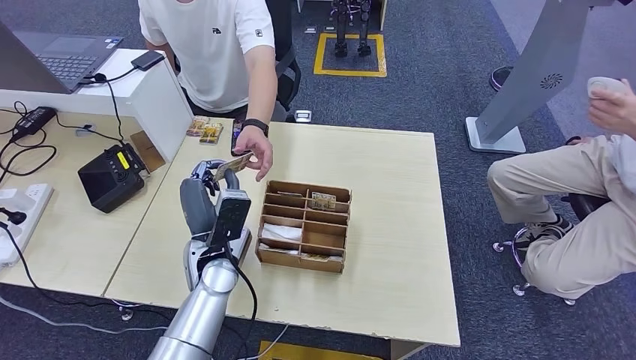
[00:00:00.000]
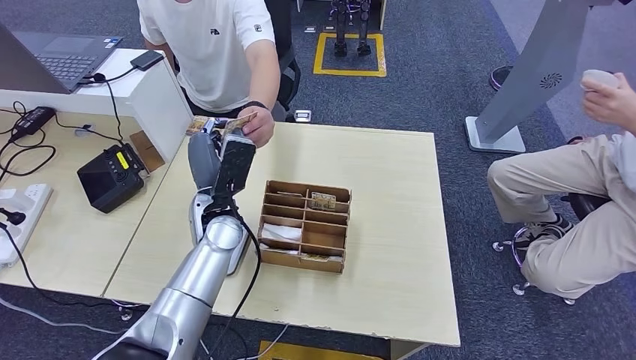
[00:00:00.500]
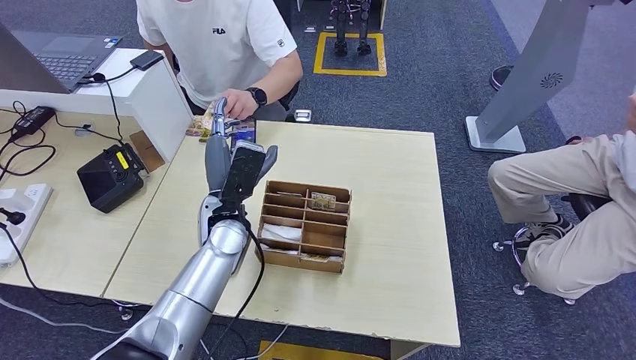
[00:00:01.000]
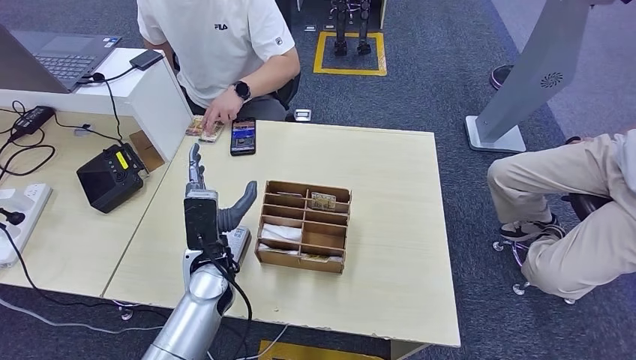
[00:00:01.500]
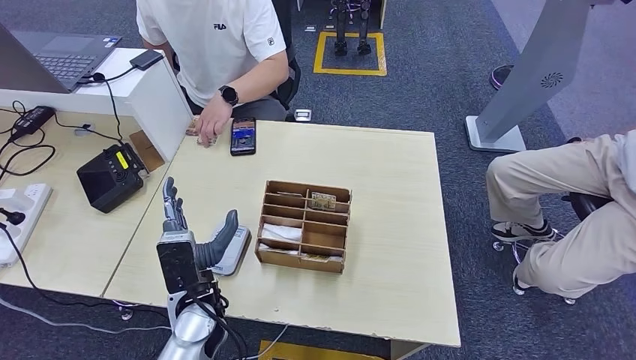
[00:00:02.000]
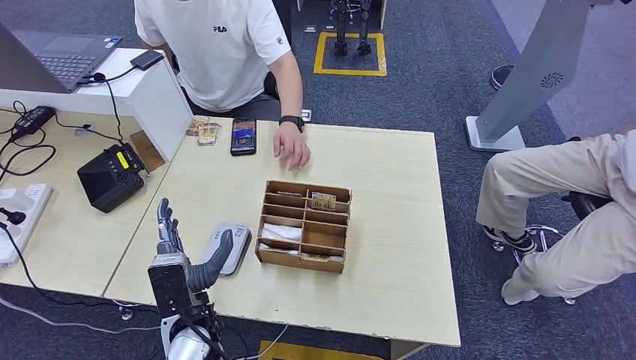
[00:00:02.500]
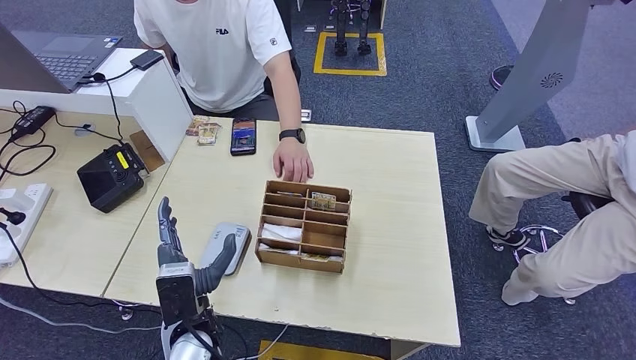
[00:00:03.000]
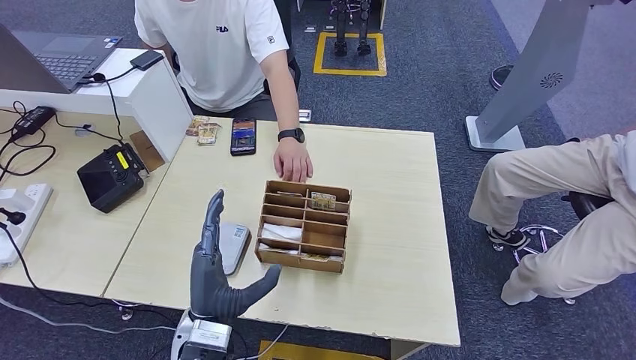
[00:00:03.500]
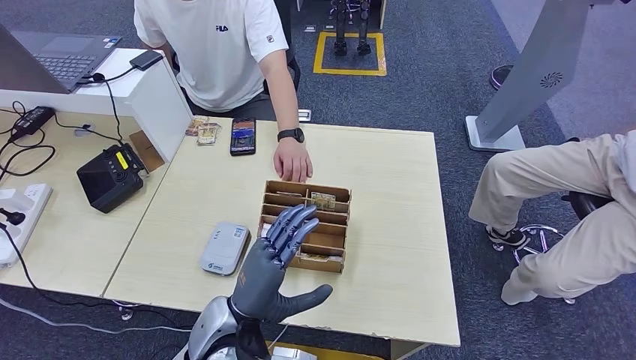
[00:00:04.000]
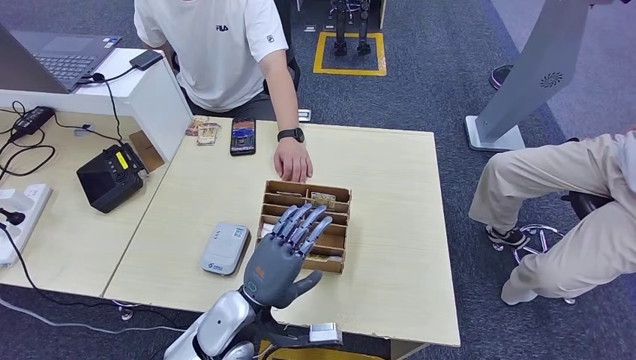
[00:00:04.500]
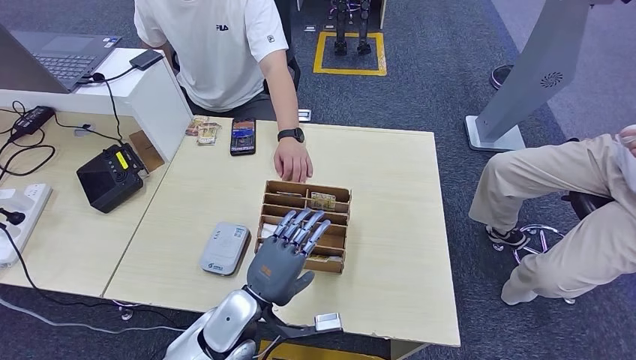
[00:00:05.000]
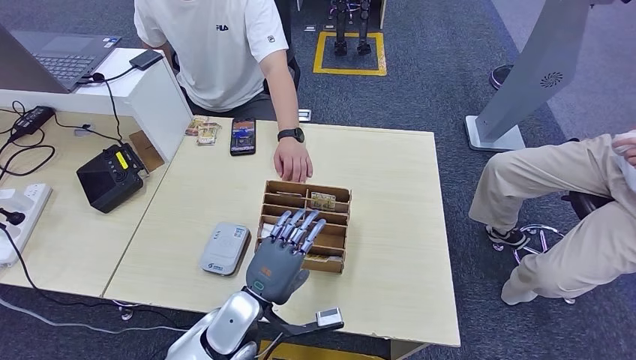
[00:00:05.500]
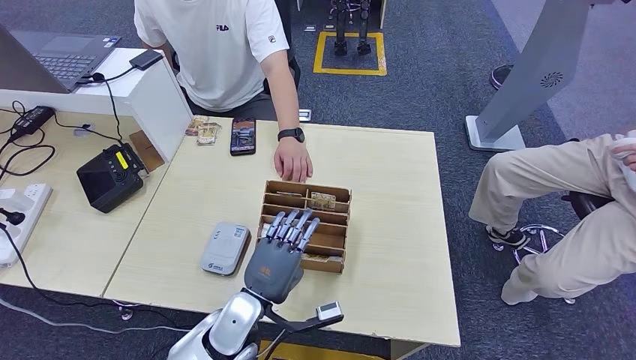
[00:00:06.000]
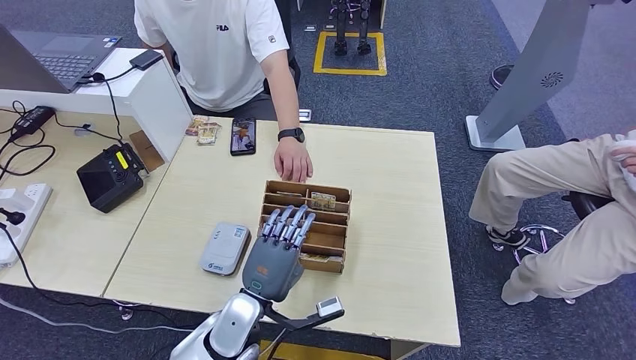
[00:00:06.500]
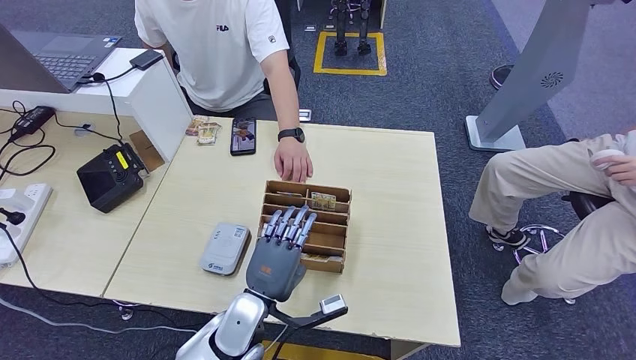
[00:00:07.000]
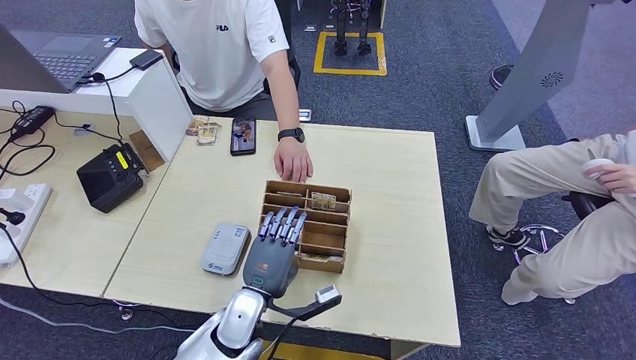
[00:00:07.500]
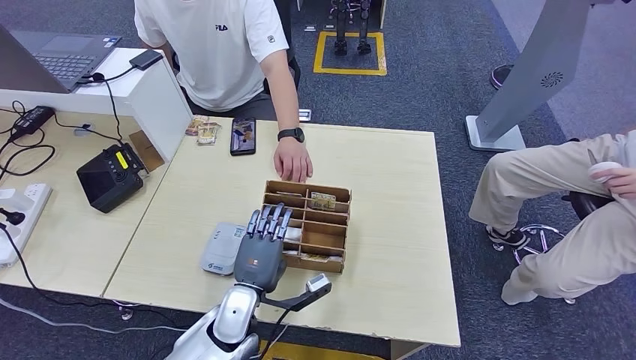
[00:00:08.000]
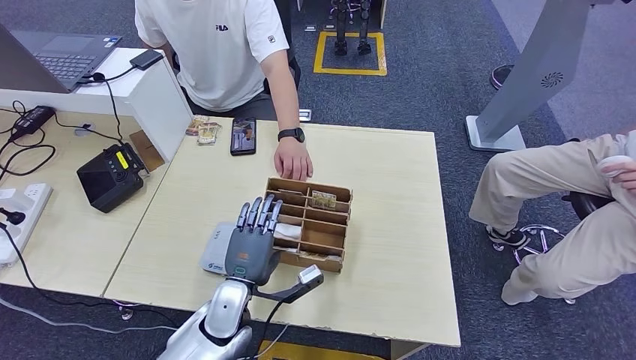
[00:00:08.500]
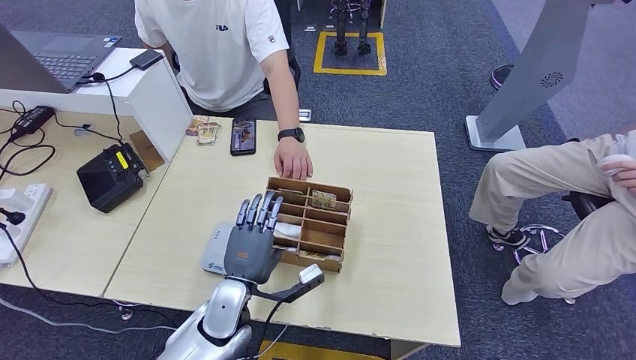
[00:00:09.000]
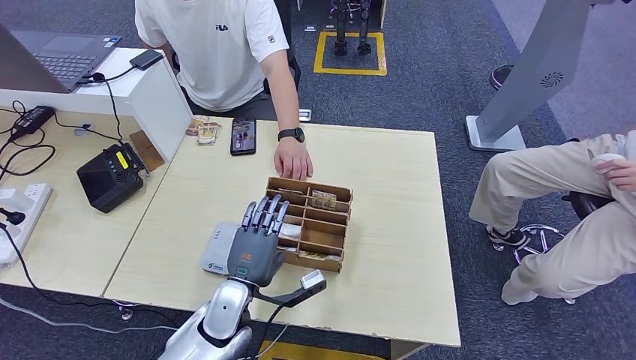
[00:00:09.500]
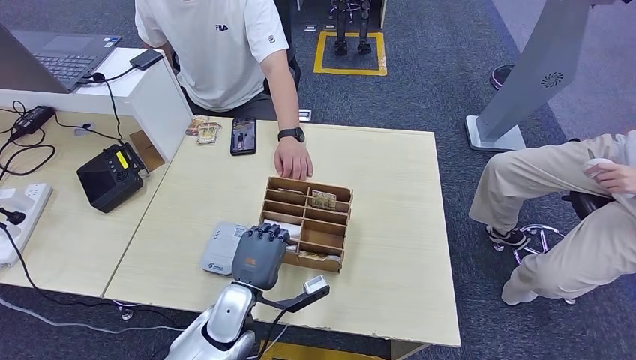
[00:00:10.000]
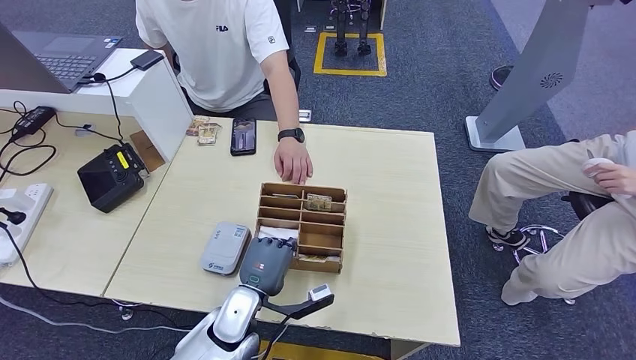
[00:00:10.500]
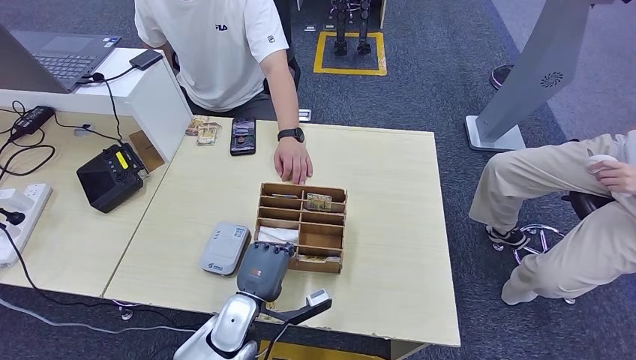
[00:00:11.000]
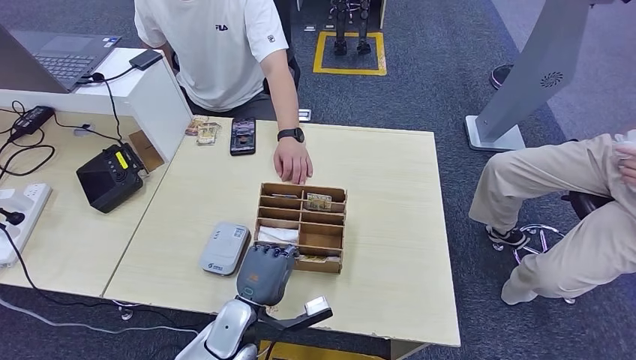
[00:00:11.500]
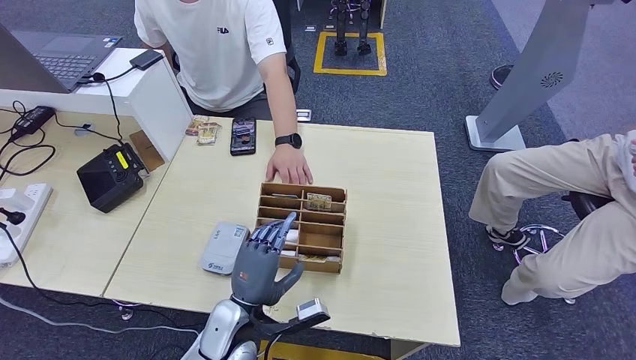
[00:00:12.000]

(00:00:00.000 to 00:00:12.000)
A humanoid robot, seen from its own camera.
00:00:00.000 - 00:00:02.000: The left hand moves backward, roughly 5 cm.
00:00:02.000 - 00:00:04.000: The left hand goes roughly 5 cm to the right.
00:00:04.000 - 00:00:06.000: The left hand travels downward by roughly 5 cm.
00:00:06.000 - 00:00:10.000: The hands stay close to where they were, moving slightly.

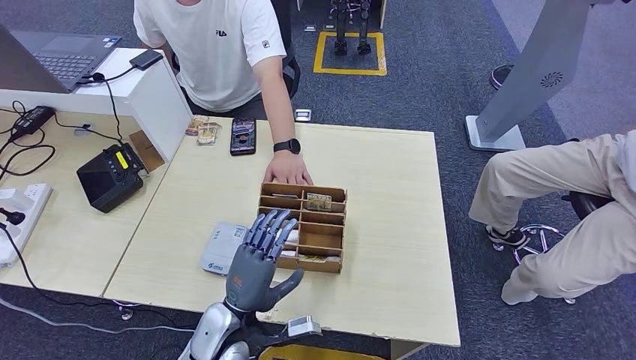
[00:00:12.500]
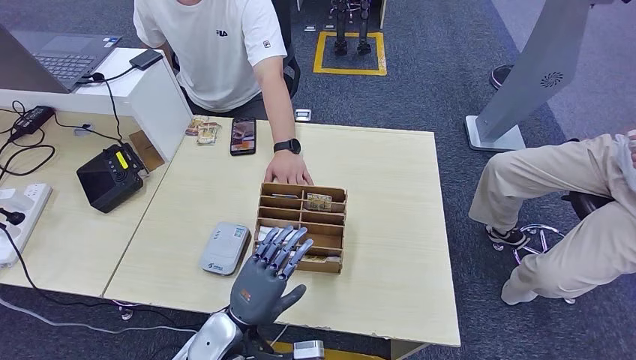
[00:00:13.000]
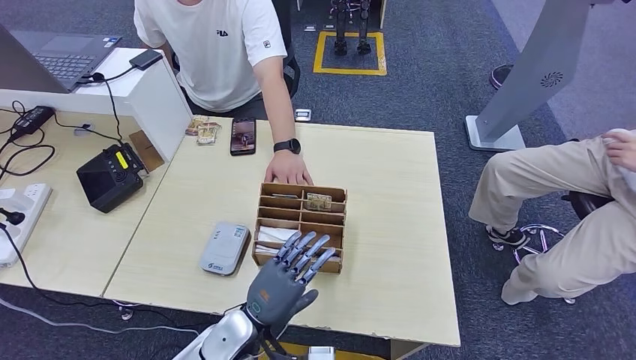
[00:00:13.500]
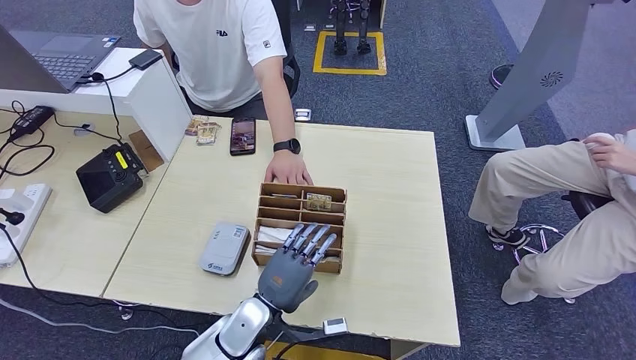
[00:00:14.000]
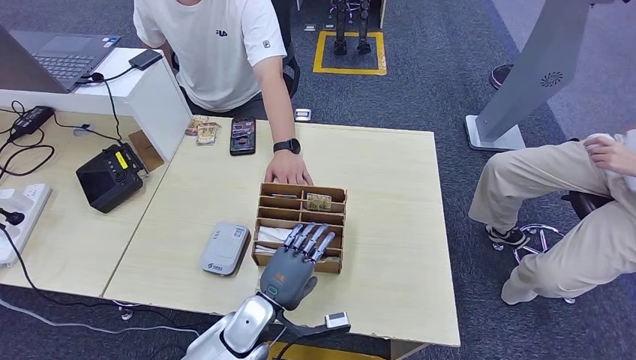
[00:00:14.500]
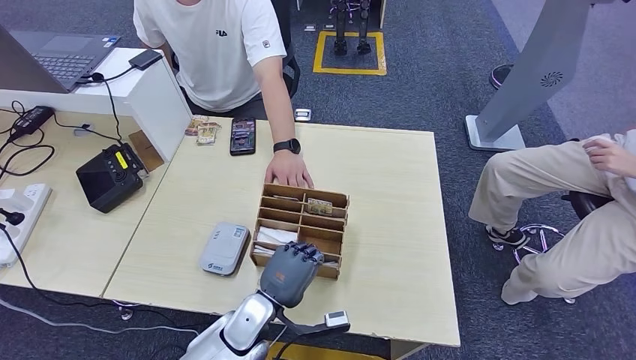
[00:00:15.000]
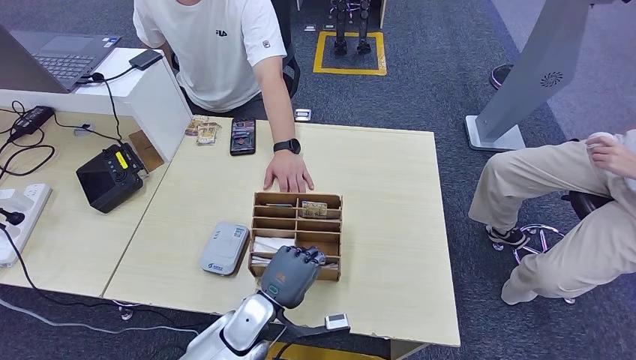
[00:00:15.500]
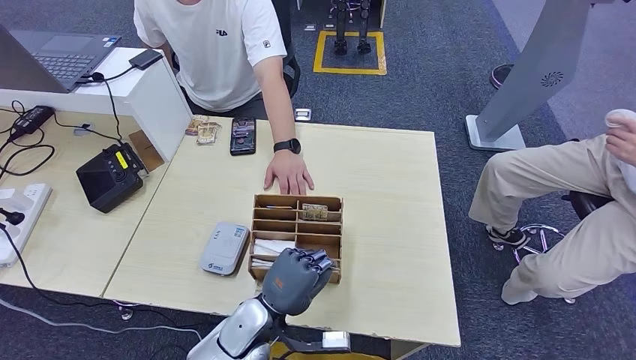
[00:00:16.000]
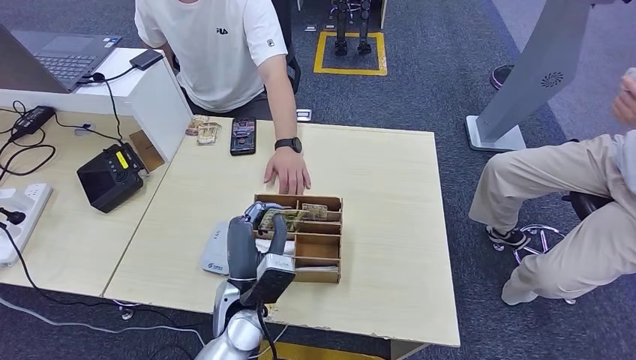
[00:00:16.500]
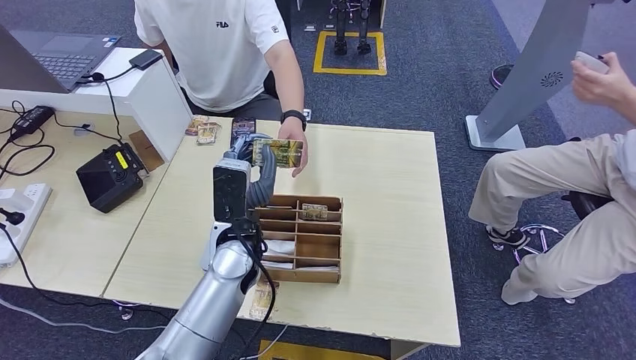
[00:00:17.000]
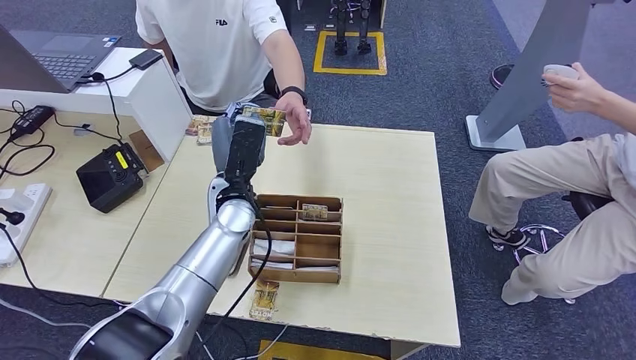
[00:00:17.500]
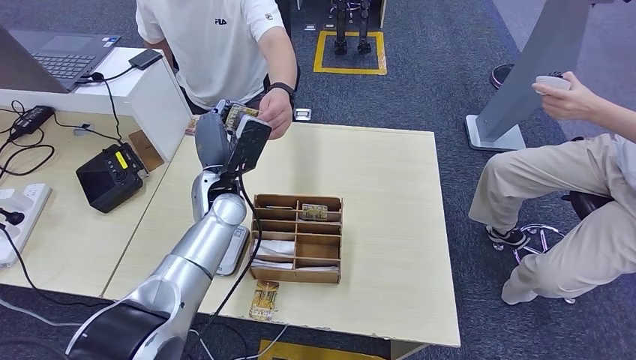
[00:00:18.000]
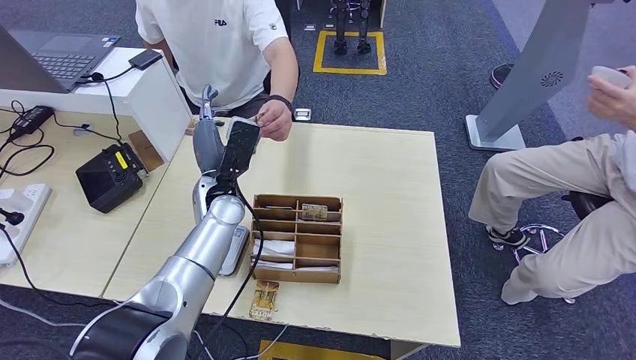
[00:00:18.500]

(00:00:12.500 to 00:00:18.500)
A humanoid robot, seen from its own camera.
Step, 00:00:12.500 - 00:00:16.000: Pick up the room key from the key card box.
Step, 00:00:16.500 - 00:00:18.500: Hand the room key to the person.
00:00:12.500 - 00:00:14.500: The left hand moves approximately 5 cm.
00:00:14.500 - 00:00:16.500: The left hand travels upward by about 5 cm.
00:00:16.500 - 00:00:18.500: The left hand shifts about 20 cm forward and upward.
